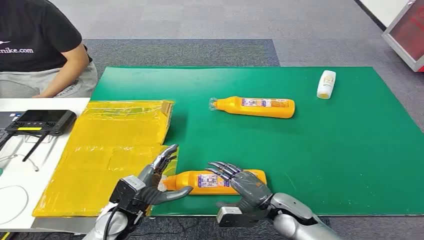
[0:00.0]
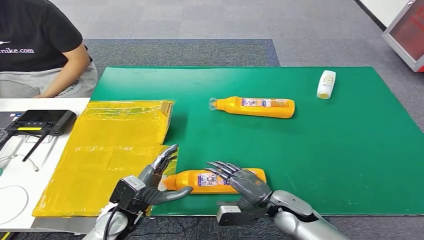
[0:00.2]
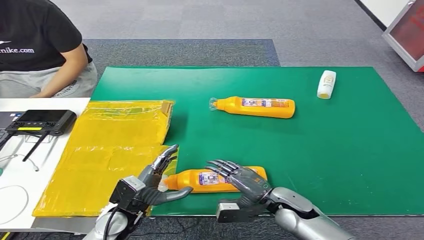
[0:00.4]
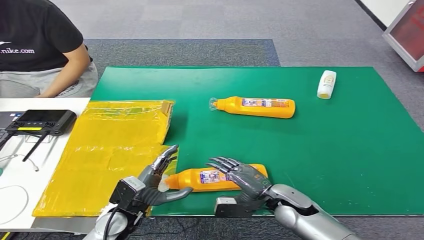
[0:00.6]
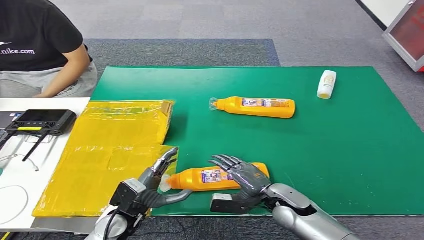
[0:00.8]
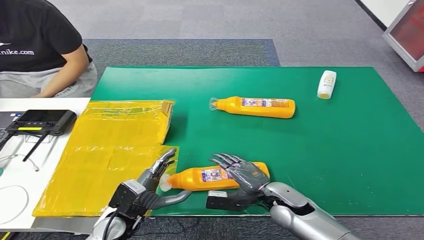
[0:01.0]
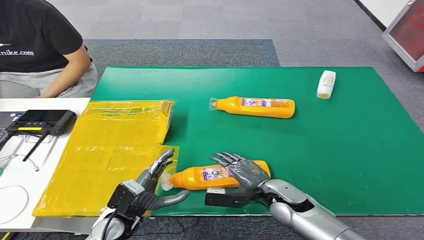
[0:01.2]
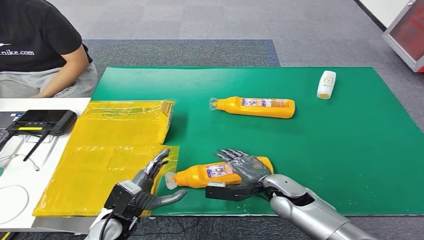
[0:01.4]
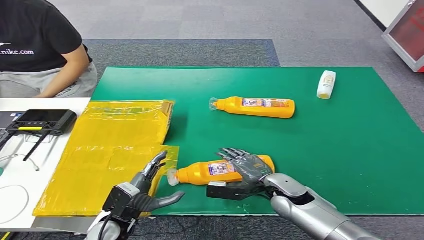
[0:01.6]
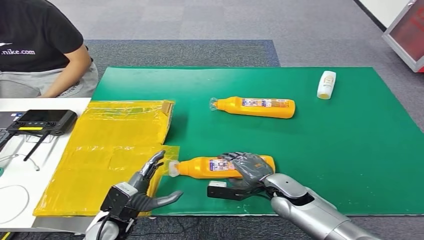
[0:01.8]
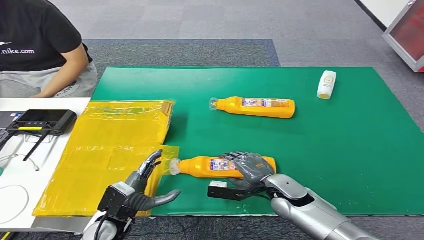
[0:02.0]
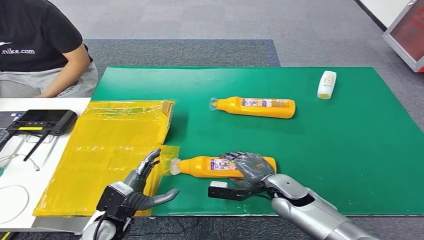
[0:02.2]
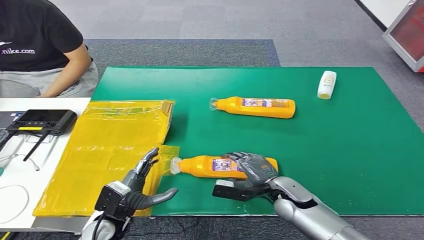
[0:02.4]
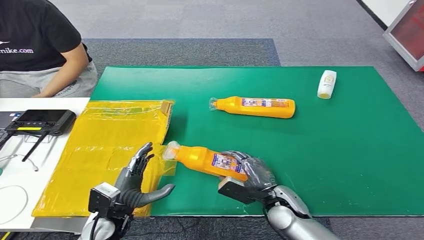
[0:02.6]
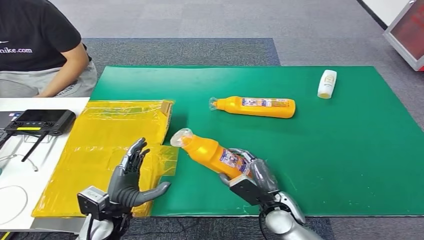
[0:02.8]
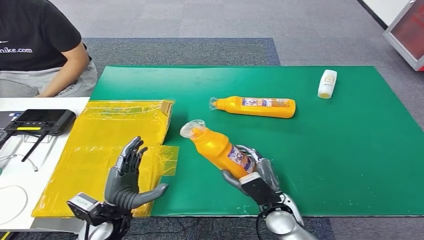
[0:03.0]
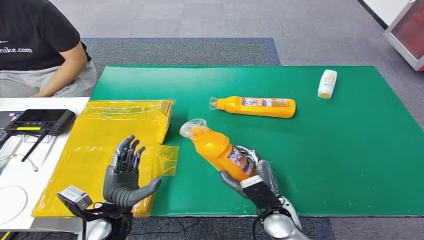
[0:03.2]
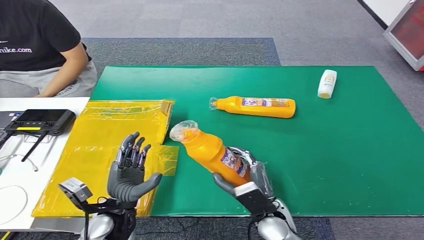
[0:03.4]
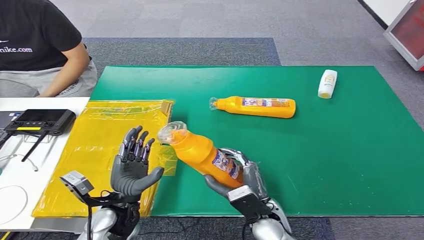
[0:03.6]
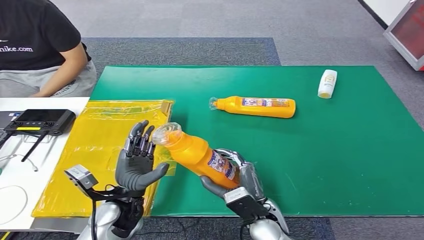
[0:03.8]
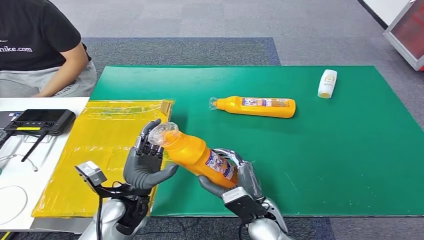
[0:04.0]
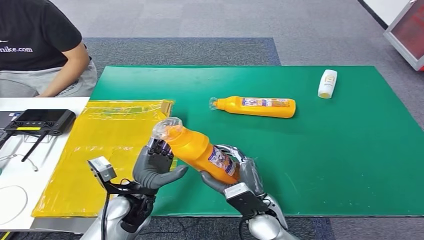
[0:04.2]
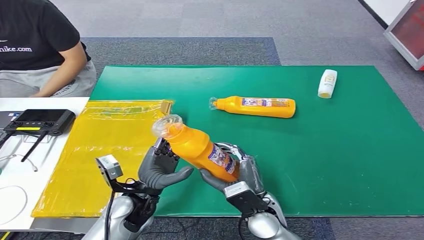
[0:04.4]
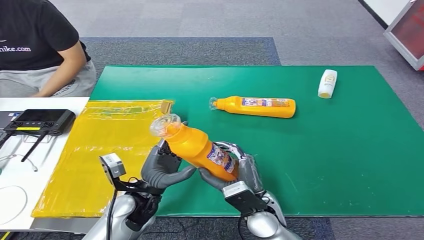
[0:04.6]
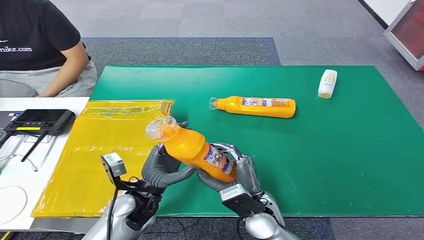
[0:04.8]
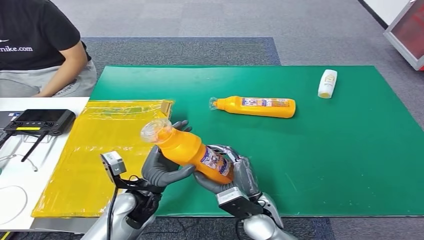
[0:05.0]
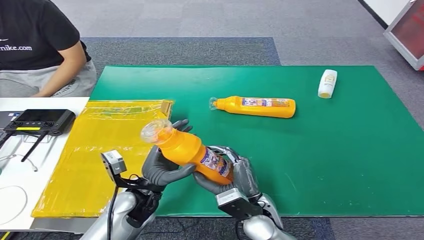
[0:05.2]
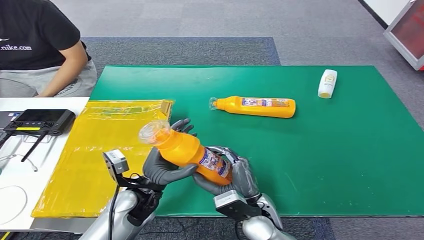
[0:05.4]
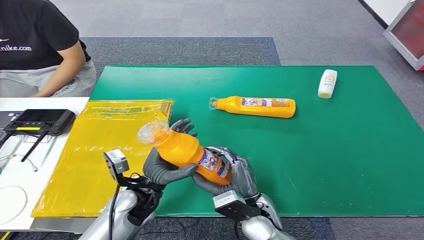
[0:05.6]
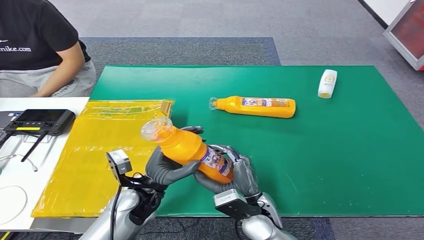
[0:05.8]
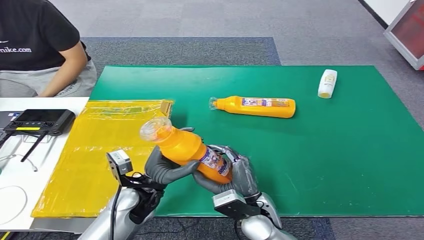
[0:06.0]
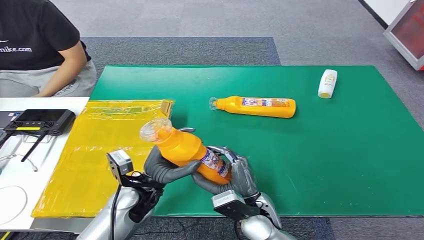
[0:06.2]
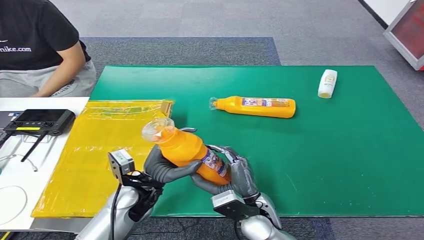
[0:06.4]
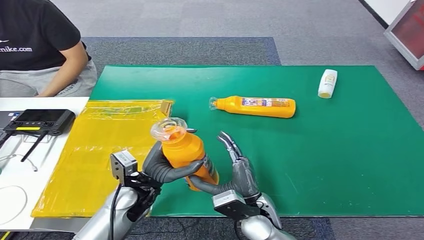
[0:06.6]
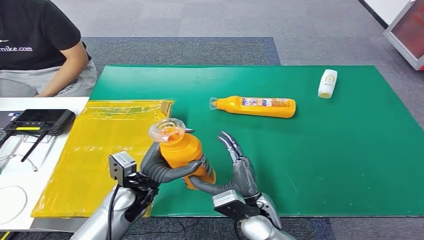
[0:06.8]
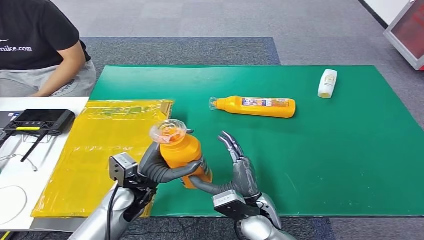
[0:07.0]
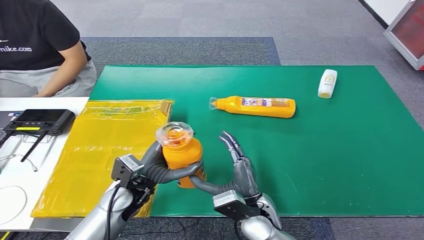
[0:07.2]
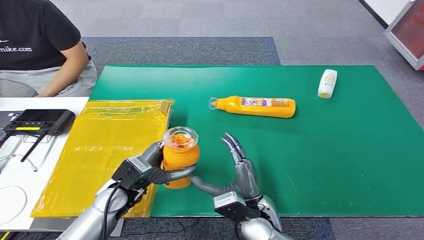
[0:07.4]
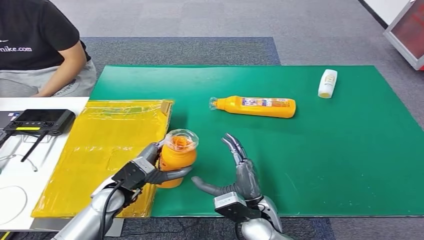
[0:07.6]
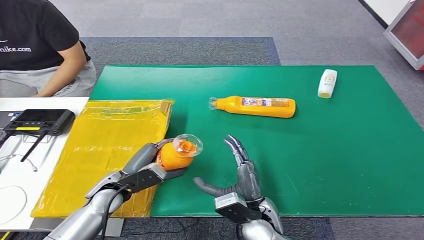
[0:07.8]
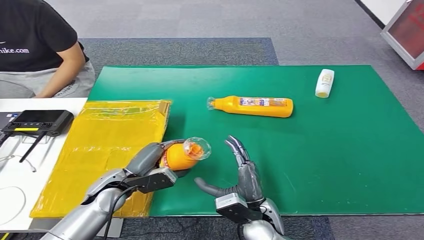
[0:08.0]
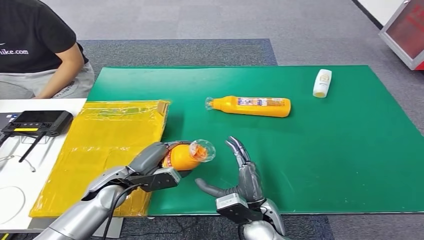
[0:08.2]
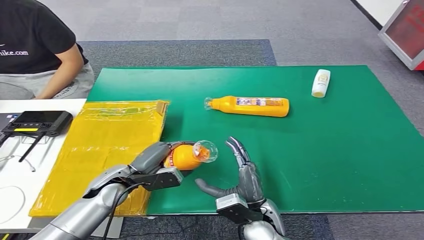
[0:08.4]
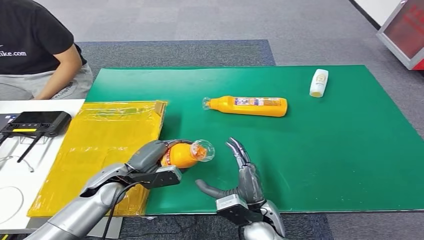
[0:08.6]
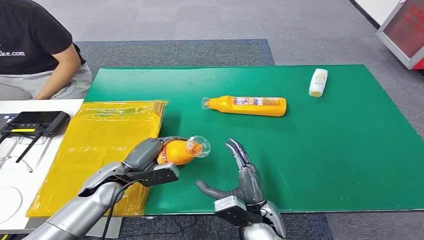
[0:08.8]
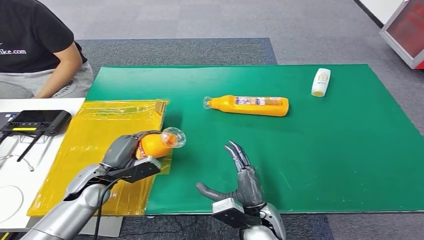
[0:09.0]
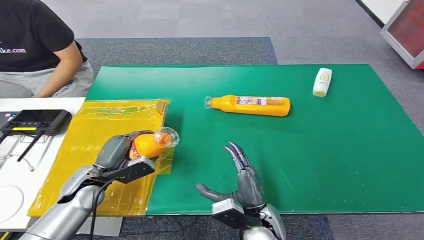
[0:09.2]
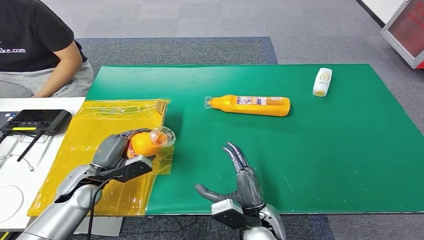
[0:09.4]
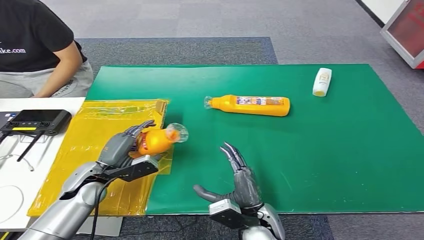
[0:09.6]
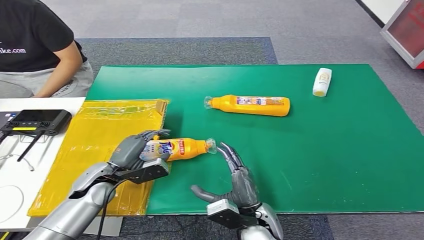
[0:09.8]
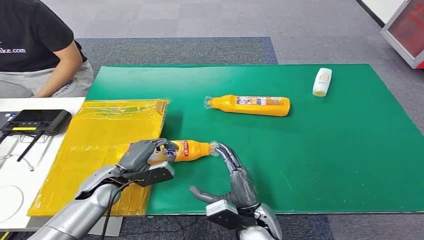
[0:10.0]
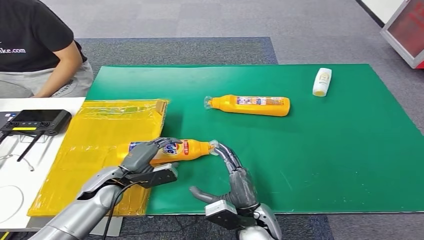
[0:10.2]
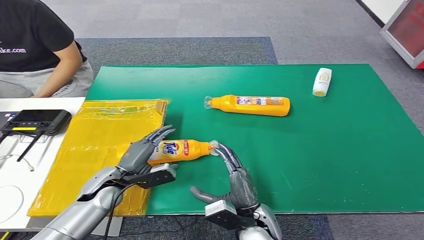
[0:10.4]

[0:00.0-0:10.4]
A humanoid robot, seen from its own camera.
Step, 0:00.0 to 0:03.6: Pick up the bottle from the table.
Step, 0:03.8 to 0:10.4: Turn the bottle to the front side.
0:01.4 to 0:03.0: The right hand is displaced backward by some 5 cm.
0:03.0 to 0:04.4: The left hand shifts roughly 5 cm to the right. Meanwhile the right hand changes place by approximately 5 cm.
0:04.4 to 0:06.0: The hands make only small movements.
0:09.0 to 0:10.4: There are only small adjustments of the hands.
